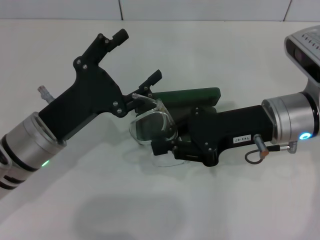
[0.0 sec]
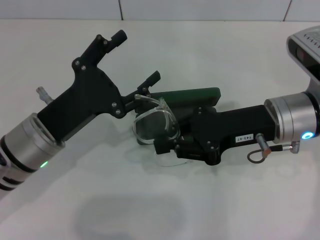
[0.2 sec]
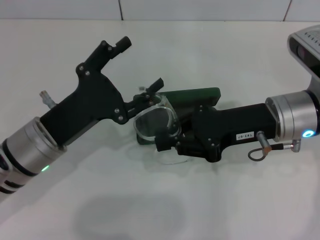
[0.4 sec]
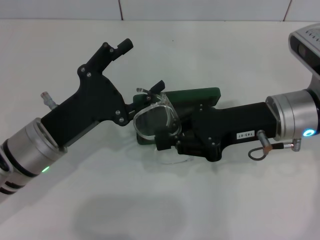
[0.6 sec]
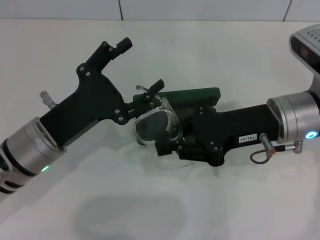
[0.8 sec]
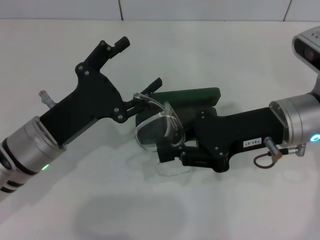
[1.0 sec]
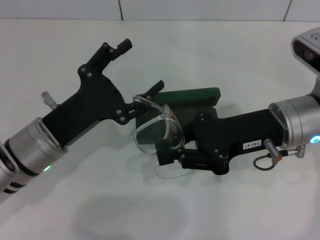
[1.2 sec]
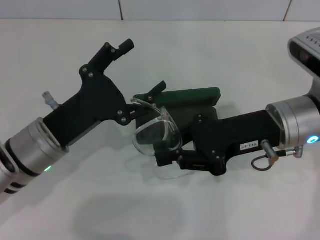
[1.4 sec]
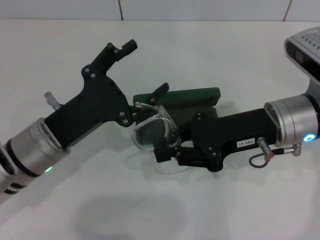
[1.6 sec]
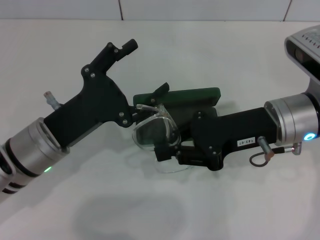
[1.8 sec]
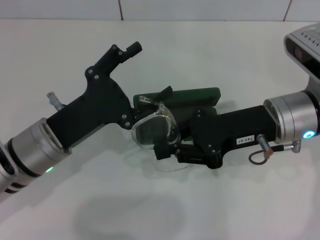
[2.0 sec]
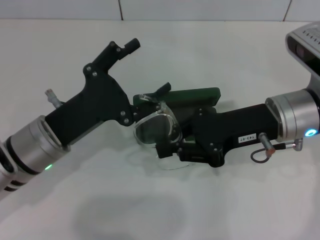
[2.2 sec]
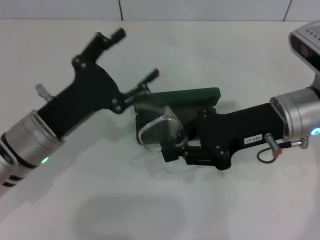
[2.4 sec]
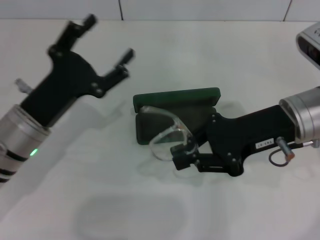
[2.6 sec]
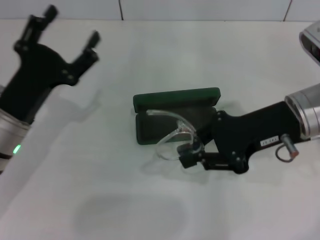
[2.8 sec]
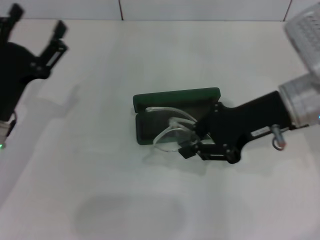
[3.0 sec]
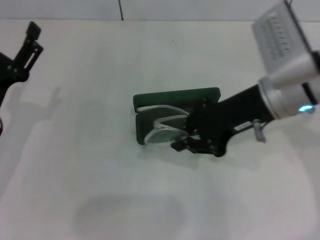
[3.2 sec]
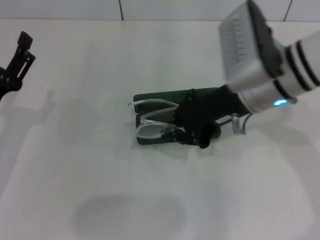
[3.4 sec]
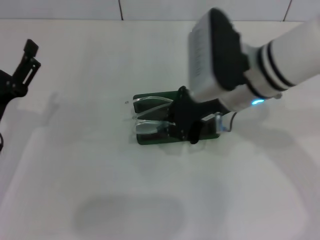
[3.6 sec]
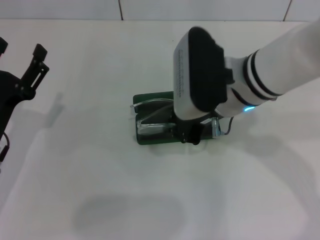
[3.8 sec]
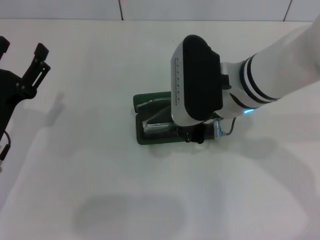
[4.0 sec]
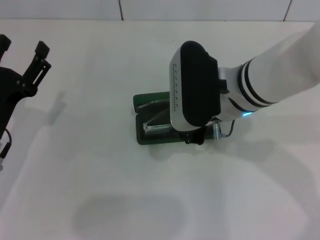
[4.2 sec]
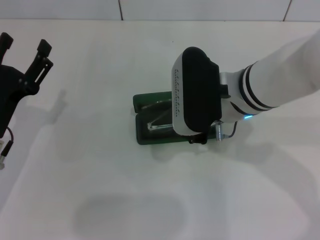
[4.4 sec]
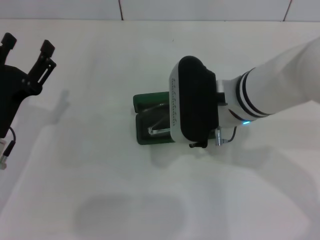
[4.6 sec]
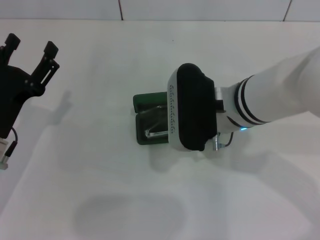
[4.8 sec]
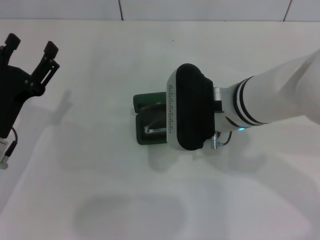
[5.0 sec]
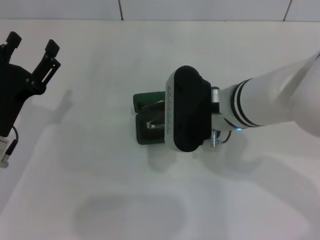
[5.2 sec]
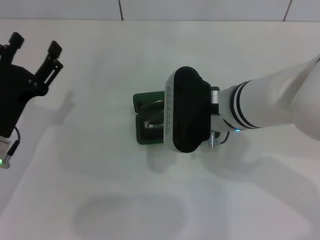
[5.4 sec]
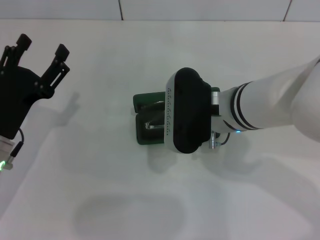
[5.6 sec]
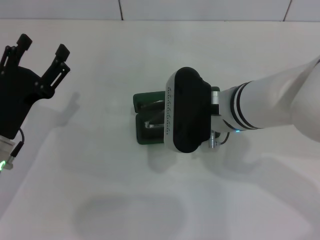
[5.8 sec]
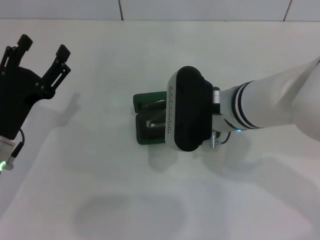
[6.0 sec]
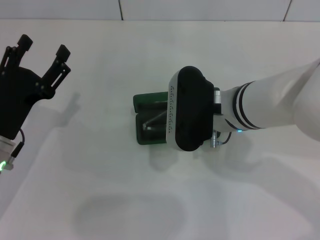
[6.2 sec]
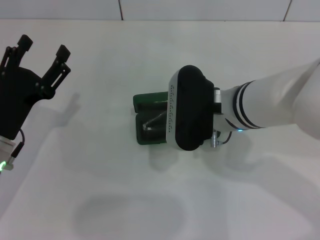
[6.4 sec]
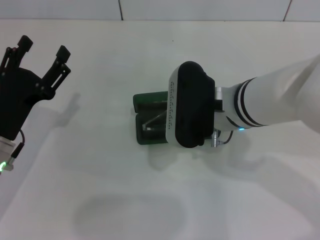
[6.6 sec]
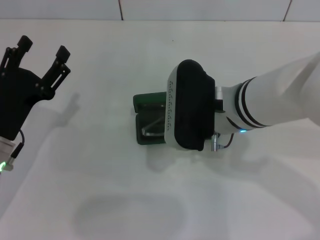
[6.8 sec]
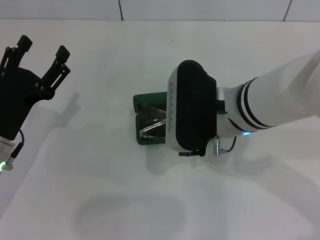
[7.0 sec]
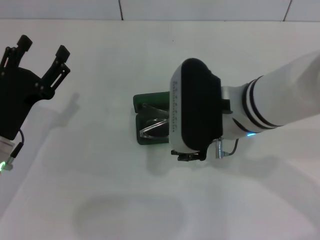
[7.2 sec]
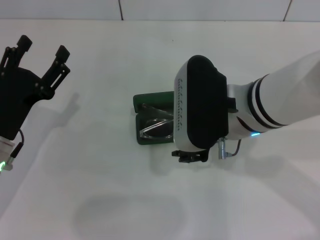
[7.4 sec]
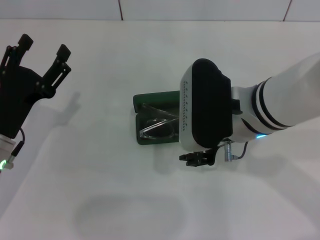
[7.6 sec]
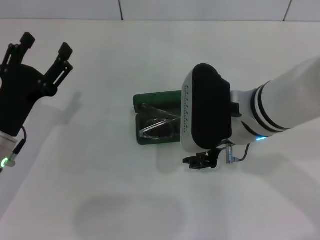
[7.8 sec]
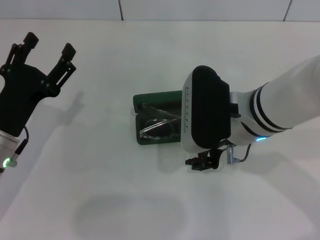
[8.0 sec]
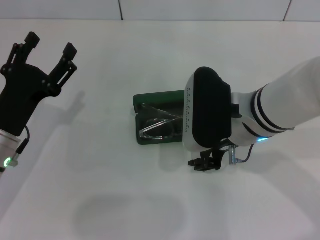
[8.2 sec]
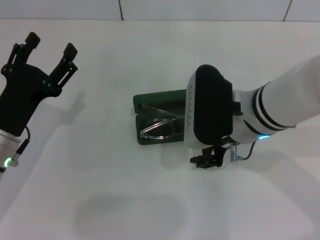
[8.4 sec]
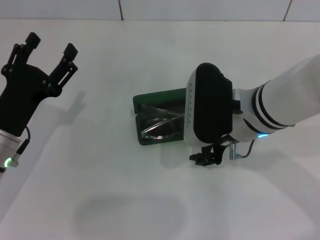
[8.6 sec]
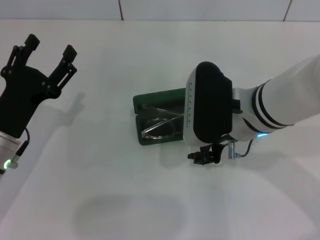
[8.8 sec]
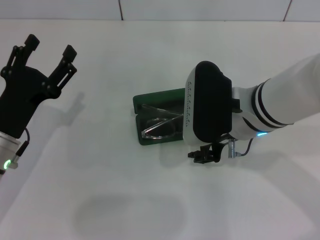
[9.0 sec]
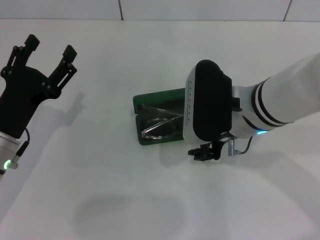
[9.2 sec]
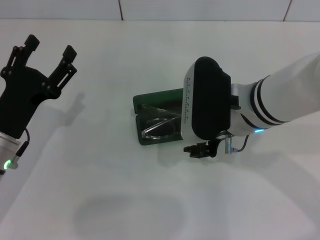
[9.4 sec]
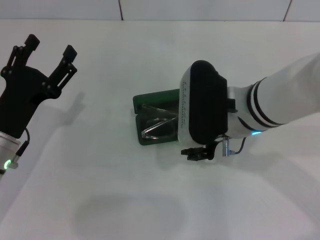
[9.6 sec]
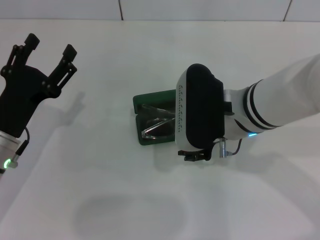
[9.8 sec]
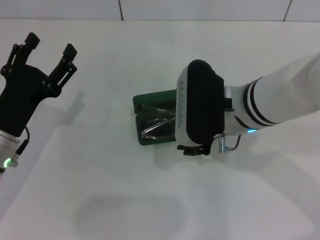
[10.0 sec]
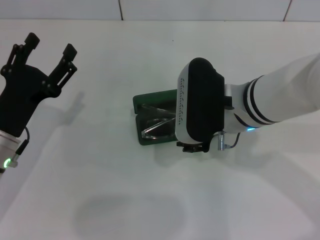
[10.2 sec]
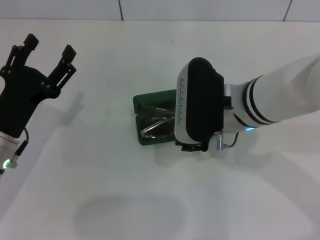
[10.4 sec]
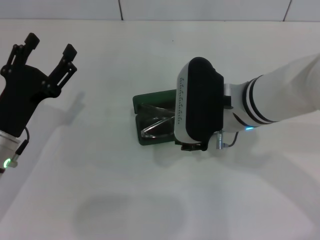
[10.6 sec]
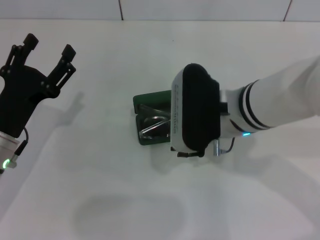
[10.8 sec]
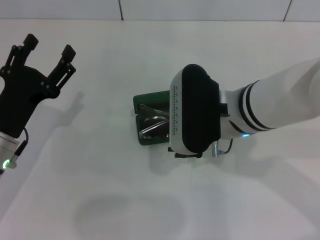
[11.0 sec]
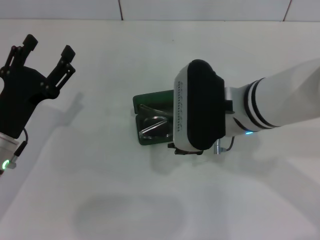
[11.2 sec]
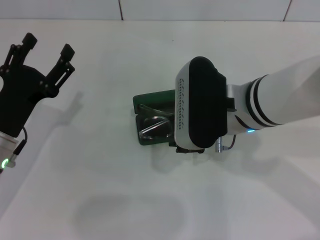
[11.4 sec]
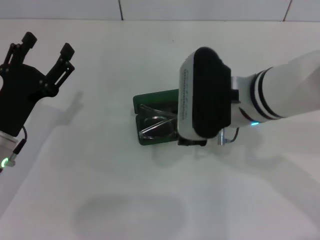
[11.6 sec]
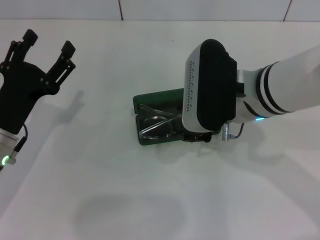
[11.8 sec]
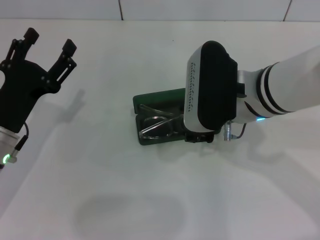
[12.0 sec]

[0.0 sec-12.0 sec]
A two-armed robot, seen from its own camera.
Step, 0.0 sec to 2.2 sec: Lift the glasses with your right hand.
Step, 2.4 sec to 11.4 sec: Put the glasses into the case with your right hand.
0.0 sec to 1.6 sec: Both grippers stay put.
1.6 sec to 3.0 sec: The left gripper moves to the left, some 5 cm.
3.0 sec to 4.4 sec: The right gripper heads to the left, covering roughly 10 cm.
4.4 sec to 6.0 sec: The grippers stay close to where they were, moving slightly.
6.0 sec to 7.6 sec: The right gripper opens its fingers.
7.6 sec to 12.0 sec: The grippers make only small movements.

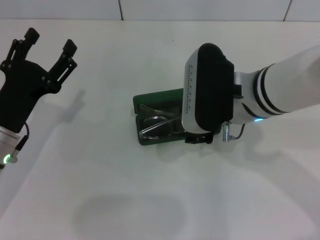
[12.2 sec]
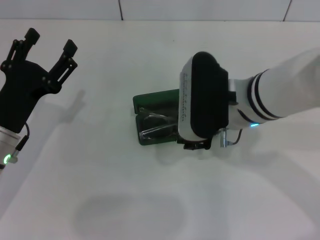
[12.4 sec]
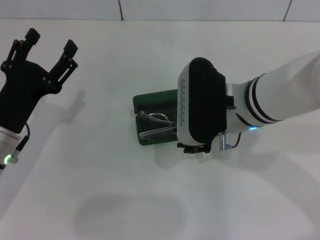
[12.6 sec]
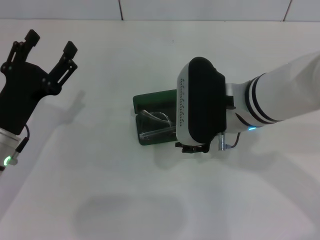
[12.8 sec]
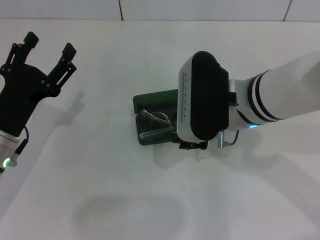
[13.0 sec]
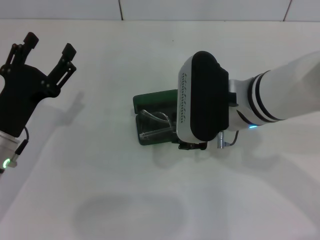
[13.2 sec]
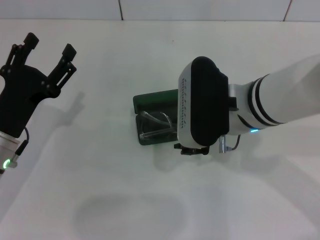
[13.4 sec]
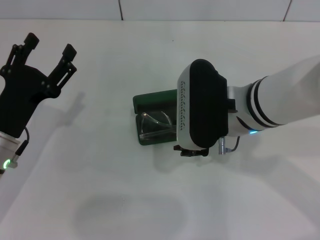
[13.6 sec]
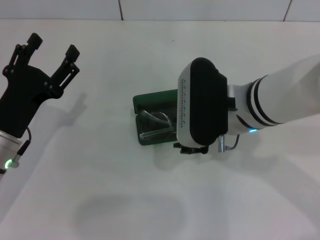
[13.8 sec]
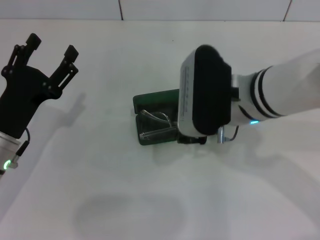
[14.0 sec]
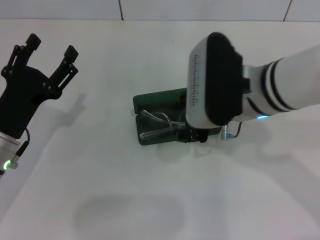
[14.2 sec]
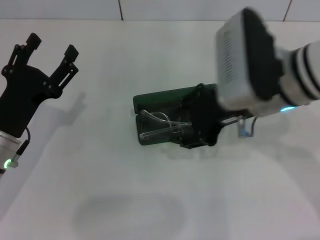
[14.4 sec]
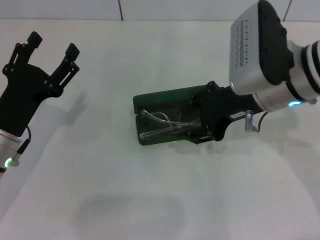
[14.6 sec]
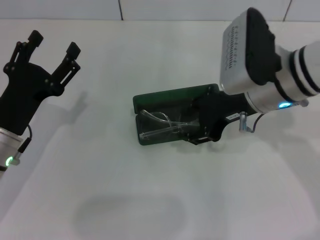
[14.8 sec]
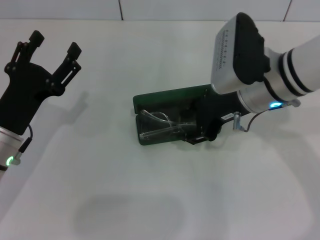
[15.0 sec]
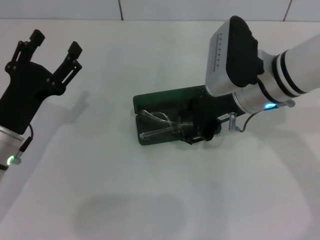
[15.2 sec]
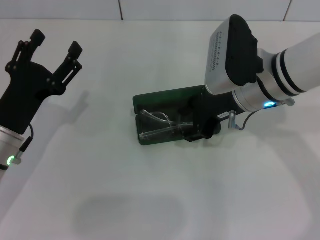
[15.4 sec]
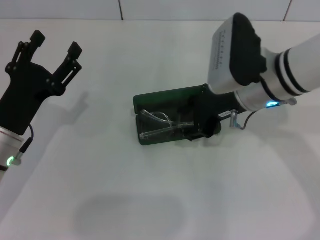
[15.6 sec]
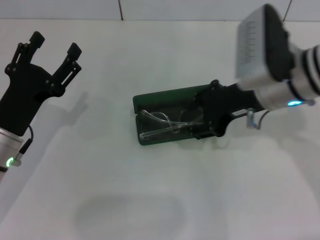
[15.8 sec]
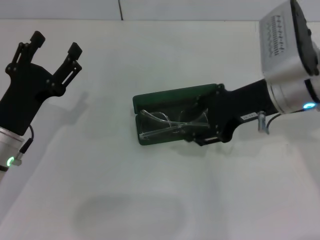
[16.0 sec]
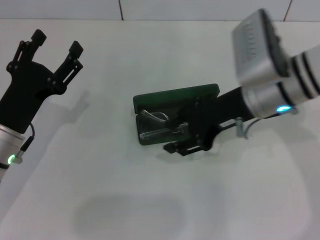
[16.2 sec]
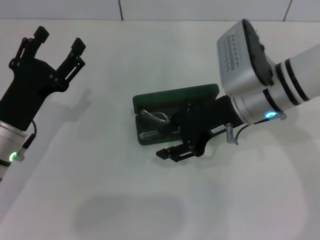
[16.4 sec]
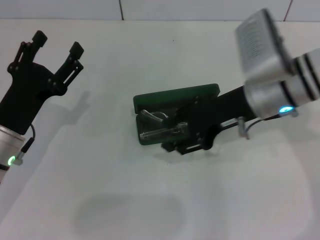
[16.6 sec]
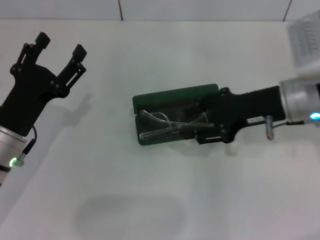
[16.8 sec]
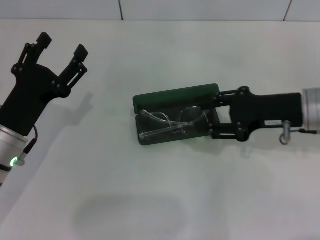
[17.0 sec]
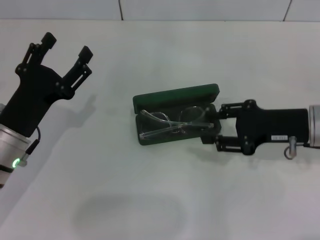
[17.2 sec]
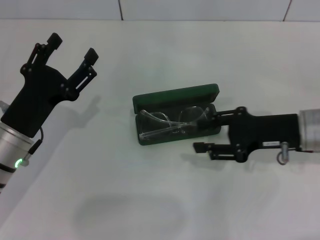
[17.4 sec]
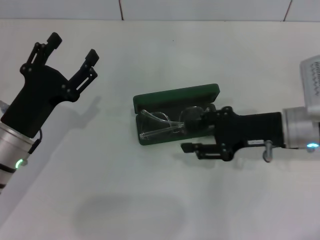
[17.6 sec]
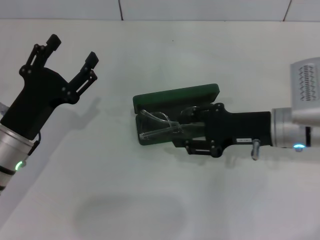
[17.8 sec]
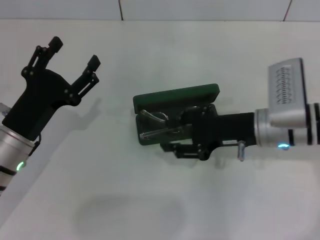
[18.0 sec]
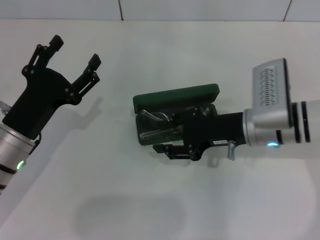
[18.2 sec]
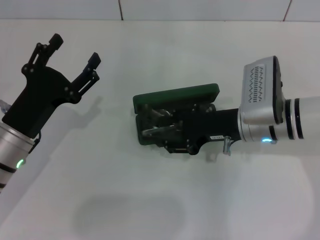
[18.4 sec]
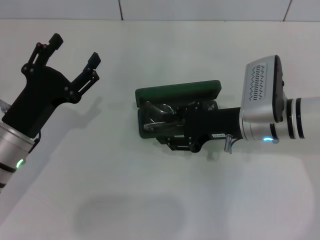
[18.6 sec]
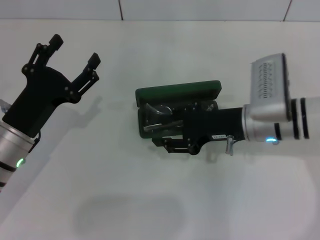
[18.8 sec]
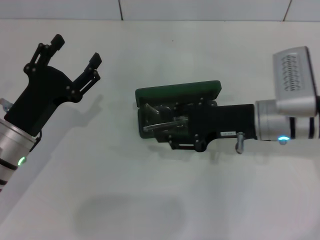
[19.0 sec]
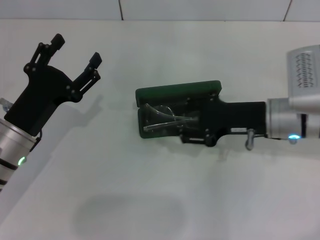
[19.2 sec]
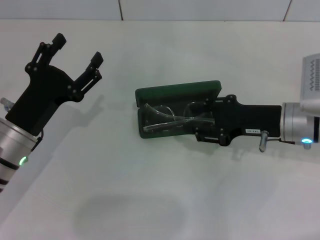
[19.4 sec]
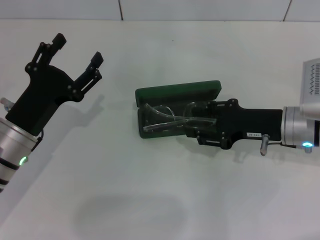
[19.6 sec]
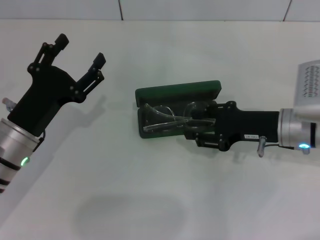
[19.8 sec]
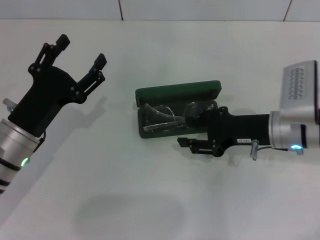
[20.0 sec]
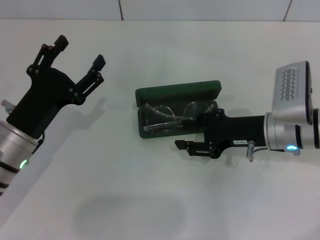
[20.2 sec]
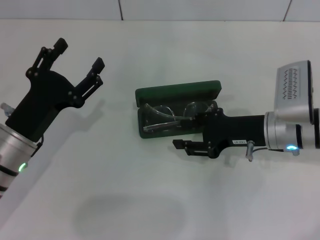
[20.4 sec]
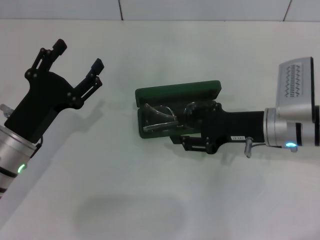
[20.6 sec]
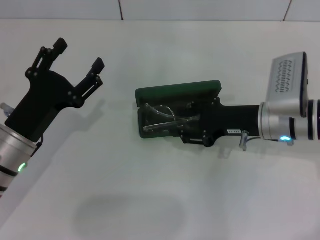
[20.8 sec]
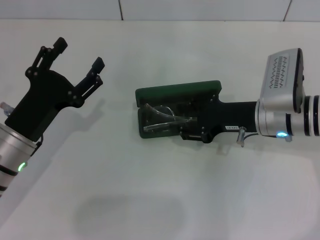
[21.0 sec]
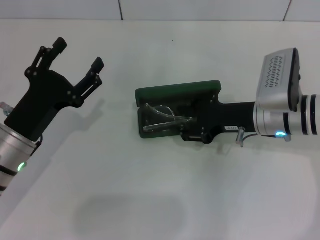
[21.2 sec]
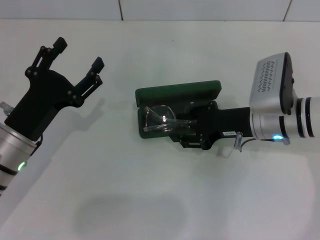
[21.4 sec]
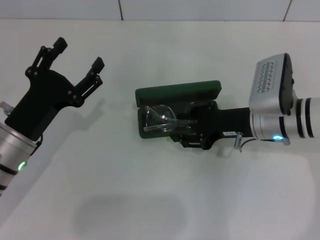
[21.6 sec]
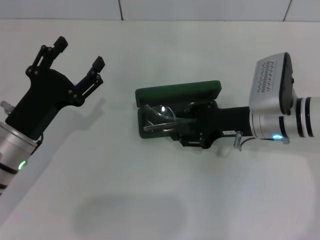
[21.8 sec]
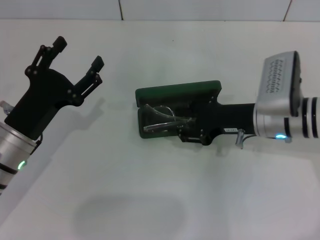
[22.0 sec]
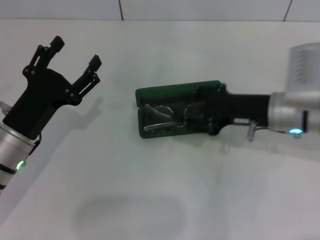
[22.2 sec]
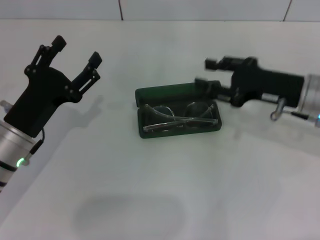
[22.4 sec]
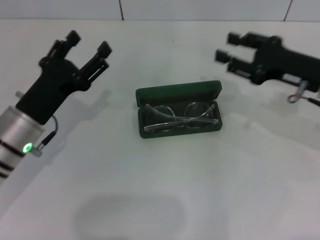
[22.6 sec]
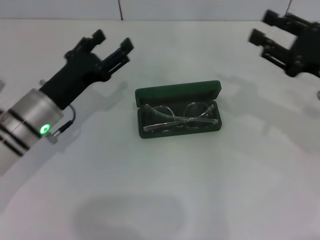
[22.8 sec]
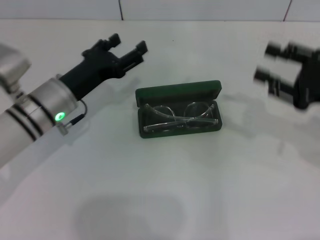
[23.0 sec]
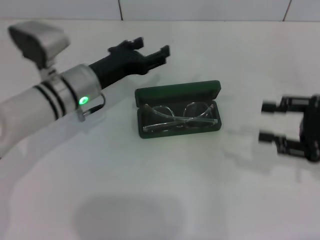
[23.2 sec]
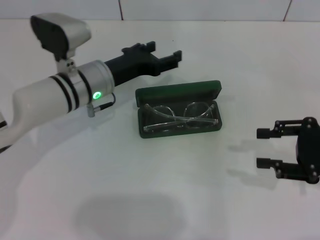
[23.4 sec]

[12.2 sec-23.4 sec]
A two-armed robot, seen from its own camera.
12.2 sec to 13.8 sec: The grippers move only a little.
13.8 sec to 15.4 sec: The right gripper changes place by roughly 5 cm.
15.4 sec to 17.0 sec: The right gripper swings left and right, approximately 10 cm each way, with 2 reversals.
17.0 sec to 18.6 sec: The right gripper is displaced to the left by about 5 cm.
18.6 sec to 21.8 sec: The grippers move only a little.
21.8 sec to 23.4 sec: The right gripper heads to the right and backward, covering approximately 15 cm; the left gripper goes roughly 15 cm forward and to the right.
